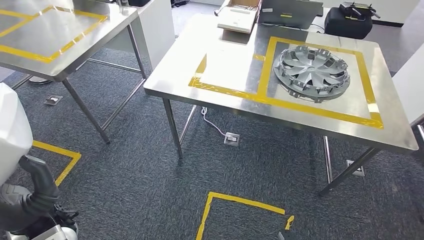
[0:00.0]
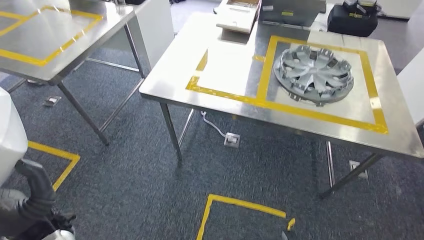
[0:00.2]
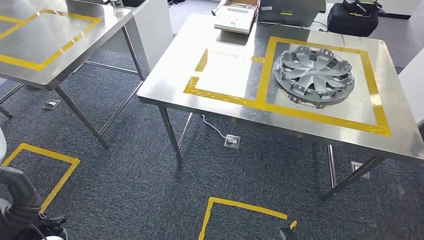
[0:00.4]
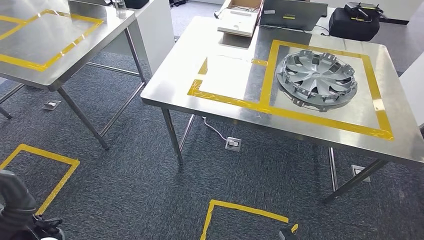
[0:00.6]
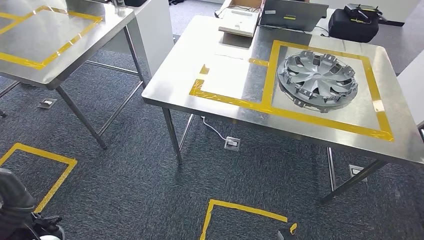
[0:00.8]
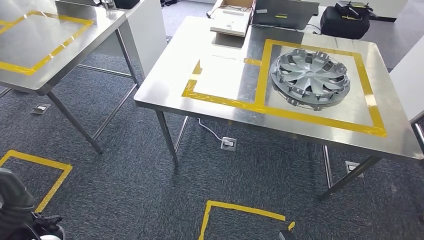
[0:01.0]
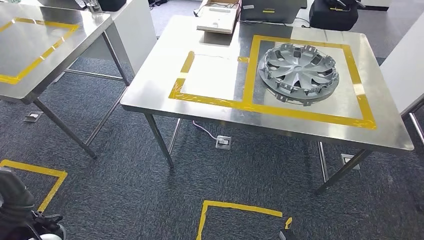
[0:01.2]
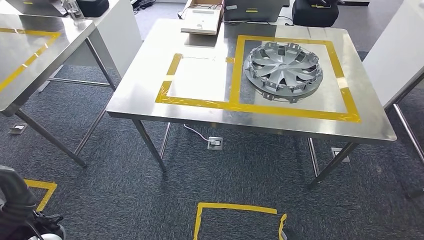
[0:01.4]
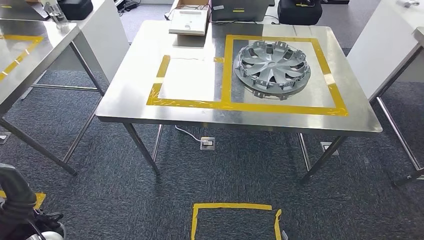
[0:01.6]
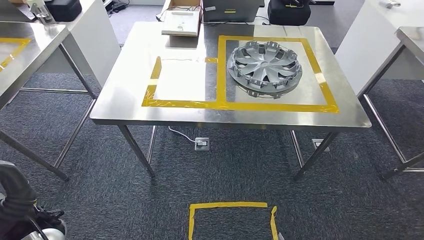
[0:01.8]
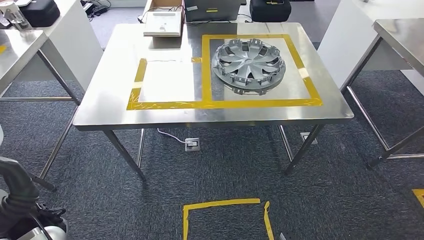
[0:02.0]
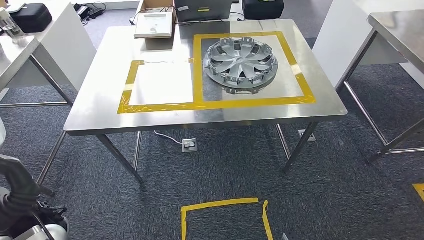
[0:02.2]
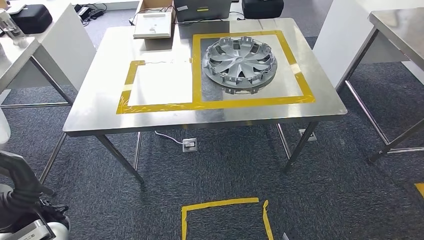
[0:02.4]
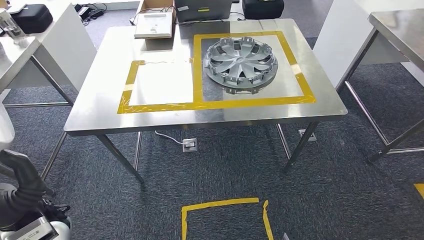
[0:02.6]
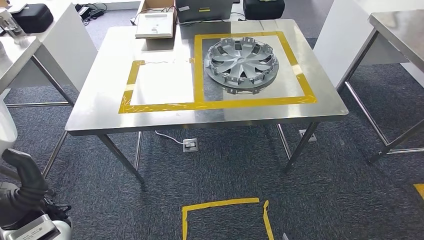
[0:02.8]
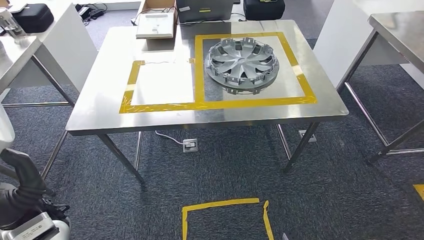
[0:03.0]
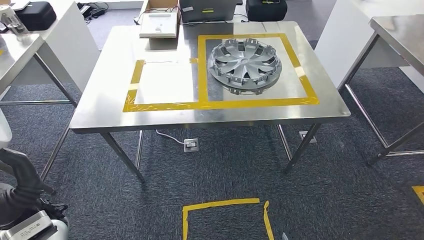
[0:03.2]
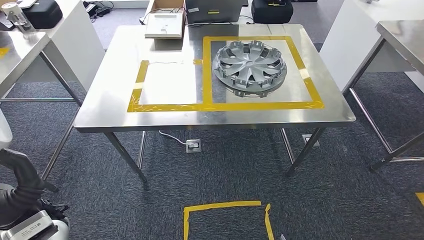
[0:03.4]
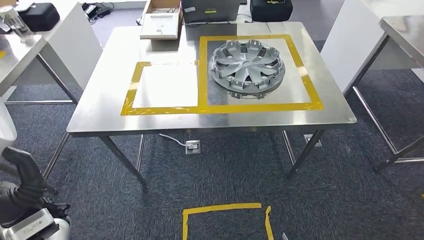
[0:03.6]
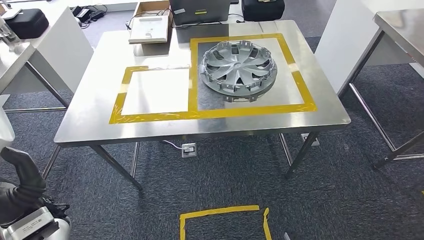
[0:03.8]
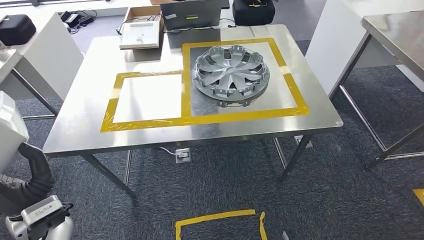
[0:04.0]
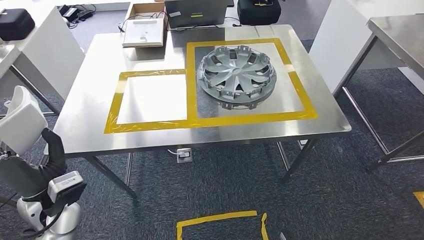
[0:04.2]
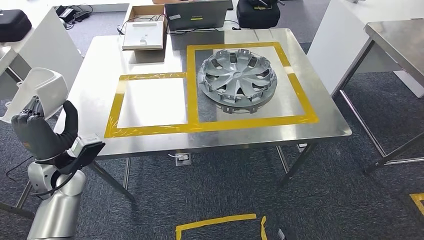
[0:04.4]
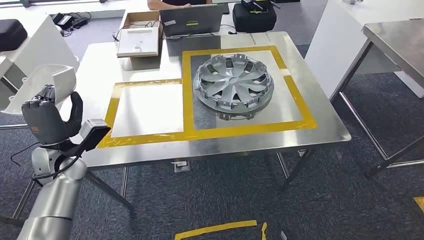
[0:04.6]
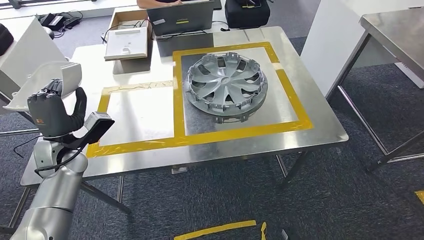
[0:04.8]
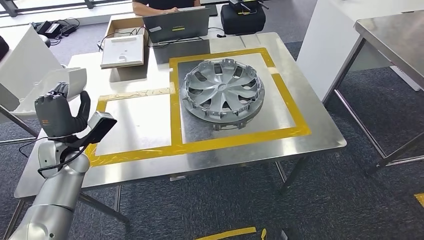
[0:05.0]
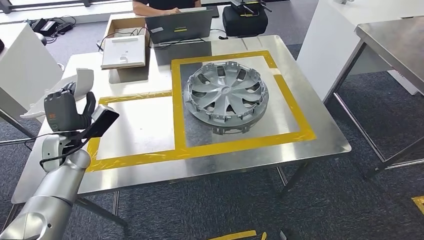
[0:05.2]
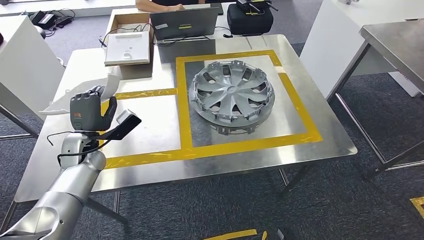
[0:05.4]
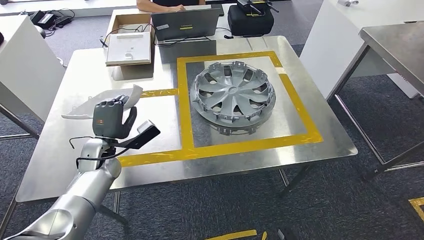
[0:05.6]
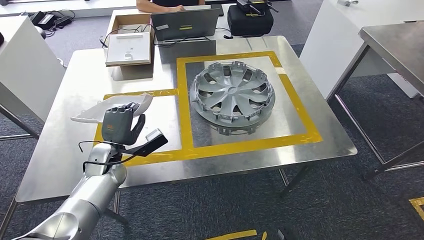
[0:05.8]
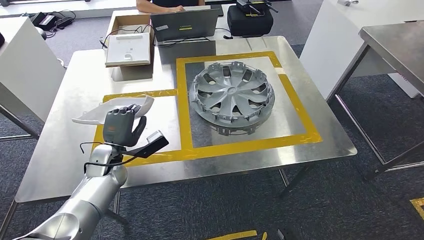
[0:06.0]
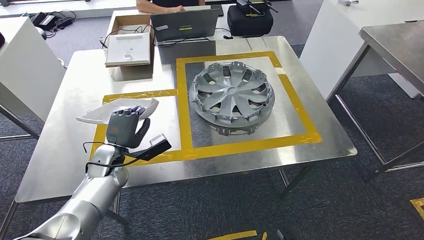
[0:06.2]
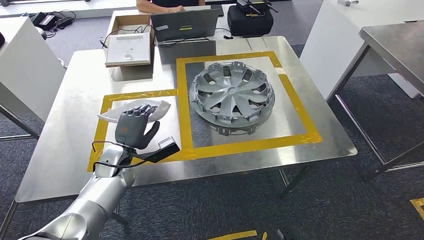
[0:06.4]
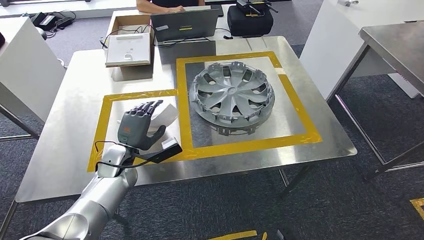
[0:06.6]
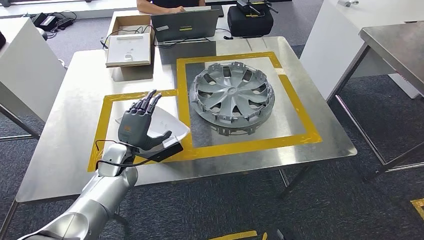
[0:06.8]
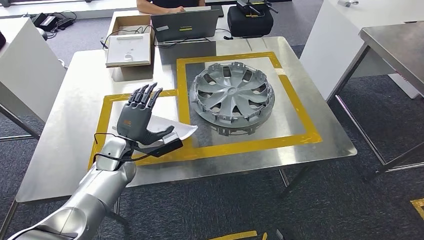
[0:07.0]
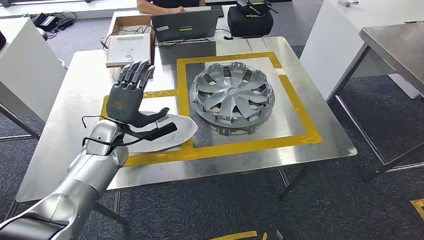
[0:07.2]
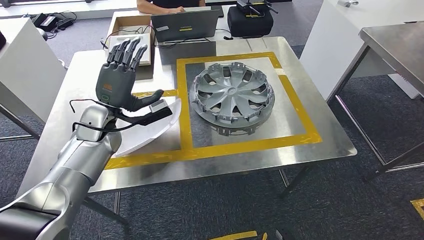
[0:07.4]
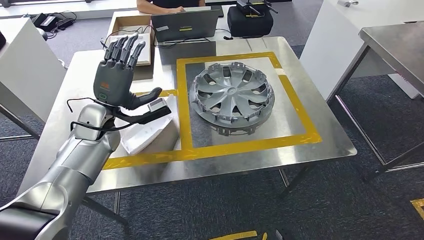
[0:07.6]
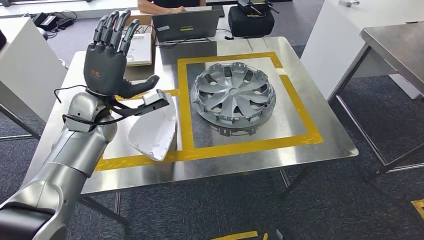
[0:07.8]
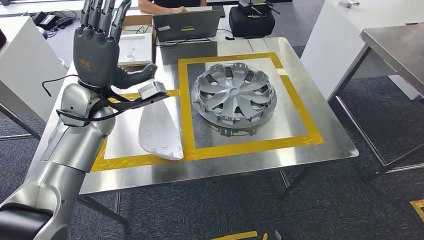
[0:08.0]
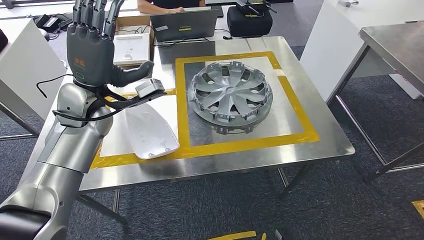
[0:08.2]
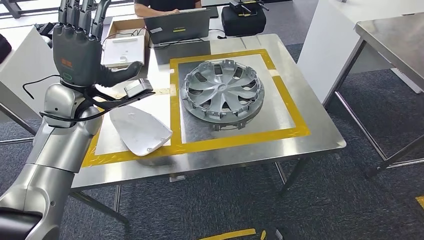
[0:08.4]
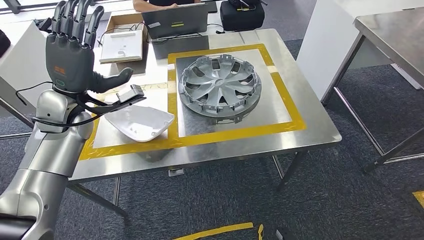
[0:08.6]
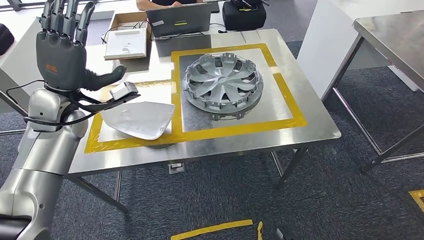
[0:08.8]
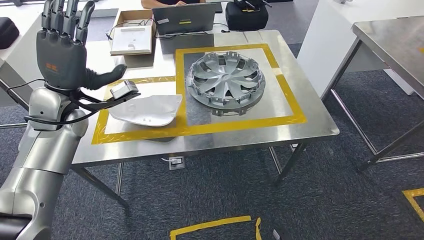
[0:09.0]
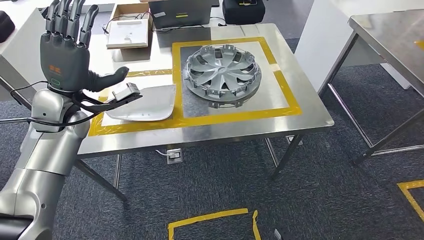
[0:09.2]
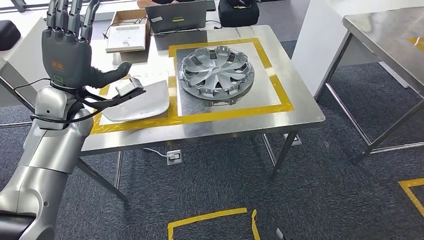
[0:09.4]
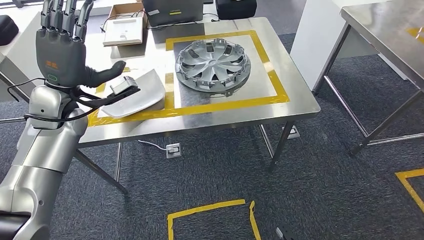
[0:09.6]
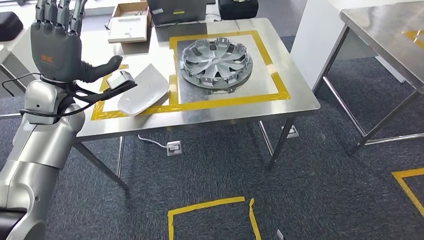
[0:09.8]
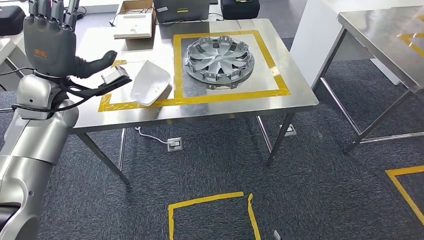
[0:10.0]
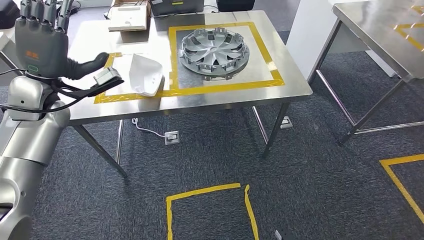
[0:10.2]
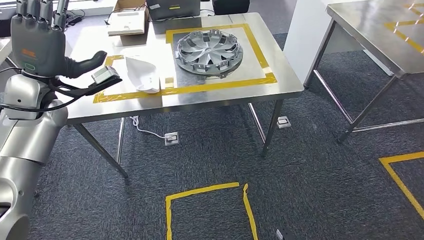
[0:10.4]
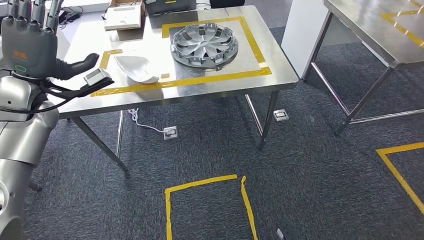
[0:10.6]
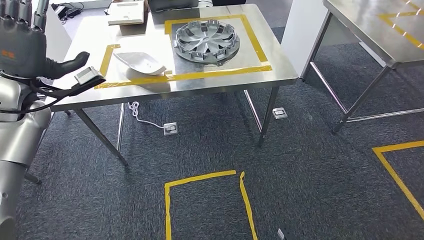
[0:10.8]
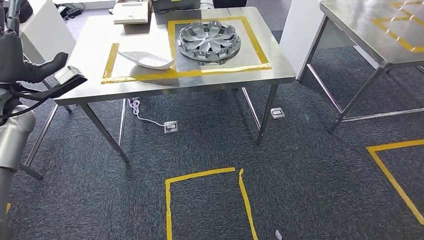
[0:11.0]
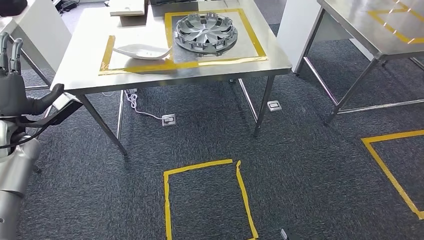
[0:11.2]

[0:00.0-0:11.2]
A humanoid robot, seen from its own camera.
Step, 0:00.0 to 0:07.8: Insert the small component into the corresponding slot on the workbench.

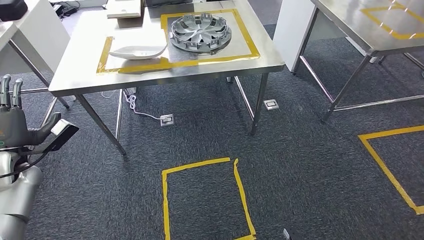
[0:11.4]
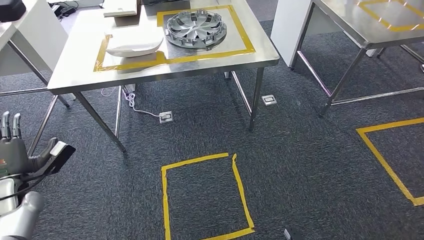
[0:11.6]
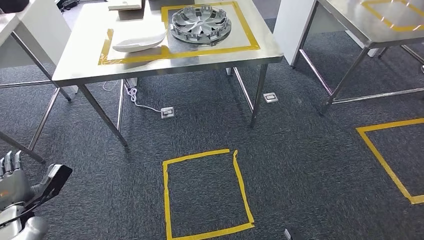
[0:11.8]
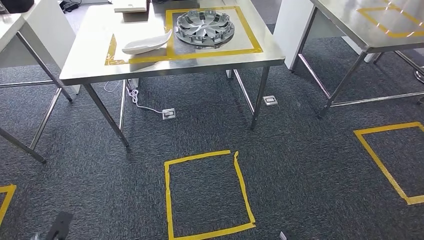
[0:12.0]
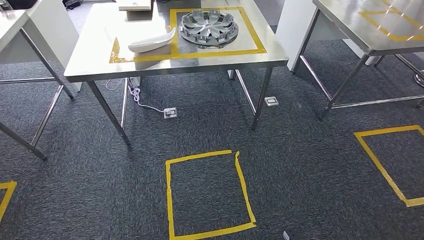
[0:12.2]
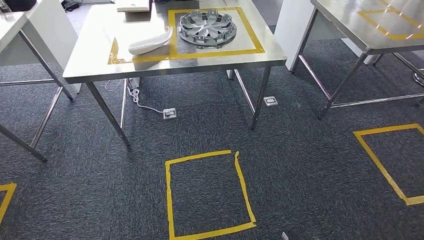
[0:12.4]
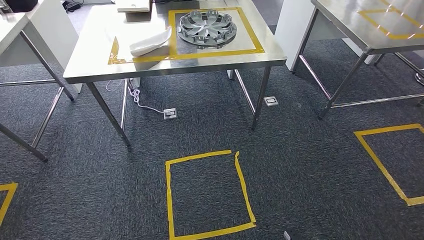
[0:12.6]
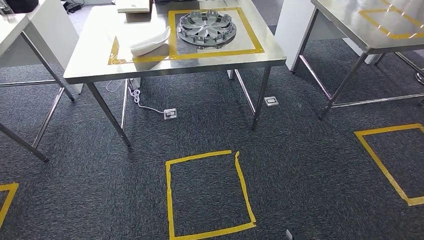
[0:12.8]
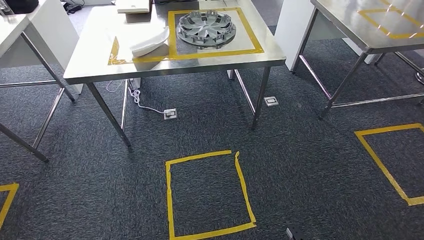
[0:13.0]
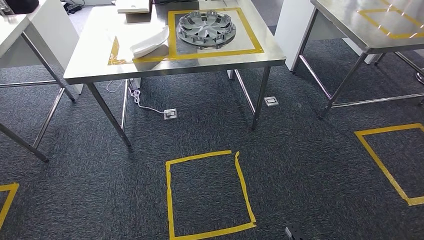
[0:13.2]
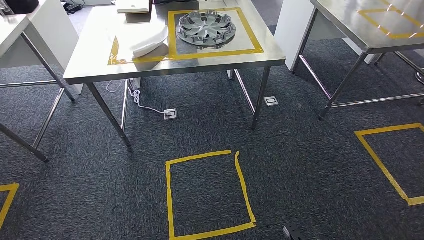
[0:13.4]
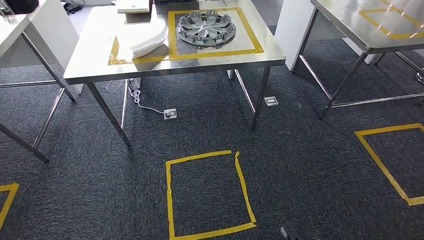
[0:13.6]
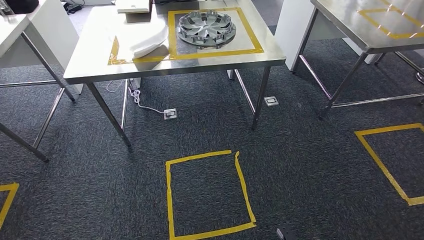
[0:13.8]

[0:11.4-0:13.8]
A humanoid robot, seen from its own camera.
Step, 0:11.4 to 0:13.8: Move to the initial position of the workbench.
0:12.6 to 0:13.8: The hands make only small movements.
